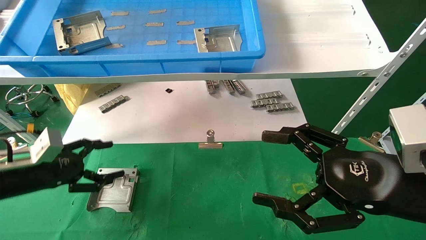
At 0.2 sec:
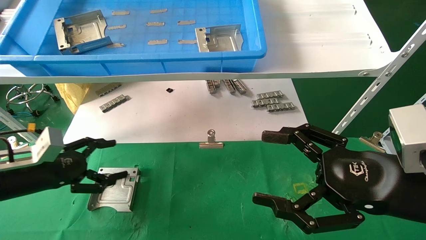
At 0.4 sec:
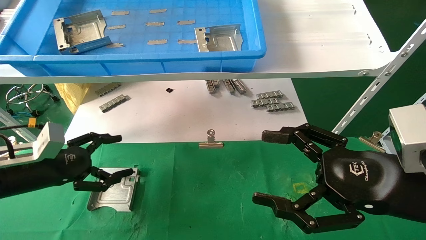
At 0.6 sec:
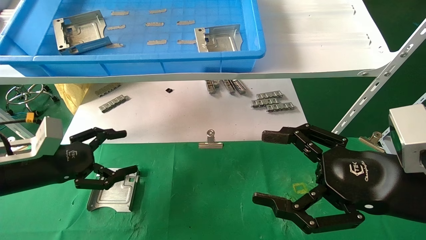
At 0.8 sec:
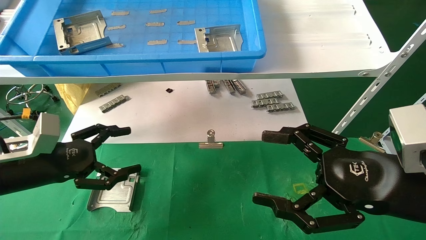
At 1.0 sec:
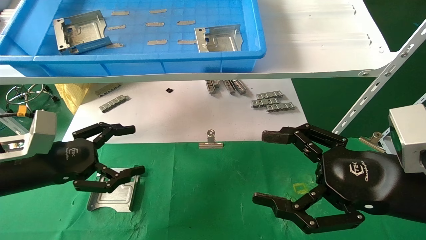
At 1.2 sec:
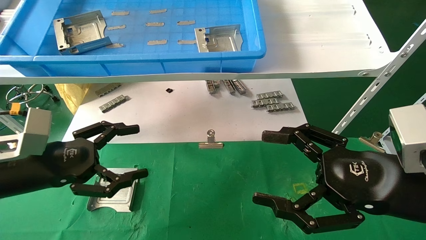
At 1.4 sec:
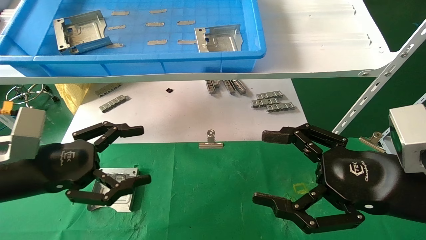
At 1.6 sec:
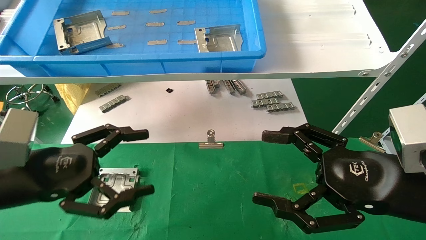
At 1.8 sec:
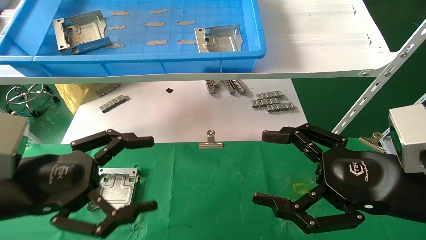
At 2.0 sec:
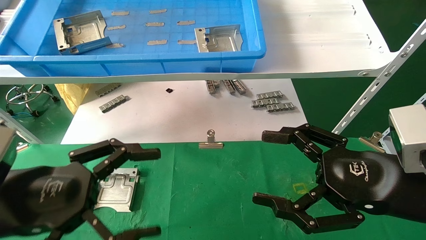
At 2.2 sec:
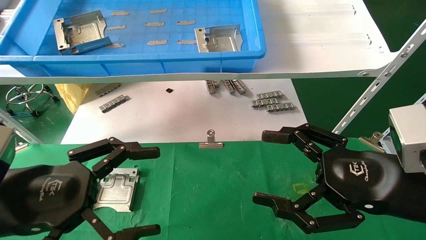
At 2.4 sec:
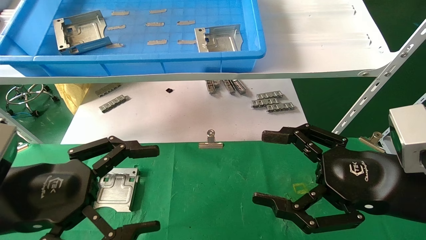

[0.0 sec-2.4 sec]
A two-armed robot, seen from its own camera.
Task of the whole recording: use the mechanical arm to pick up the parts and place them on the table.
0.0 sec to 1.2 sec: The left gripper goes roughly 10 cm to the right and backward.
1.2 sec to 2.4 sec: The left gripper travels backward by approximately 10 cm.

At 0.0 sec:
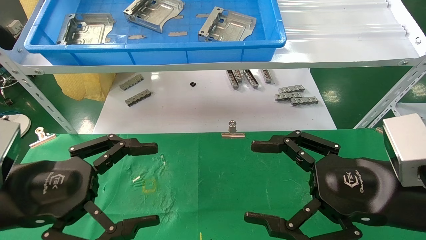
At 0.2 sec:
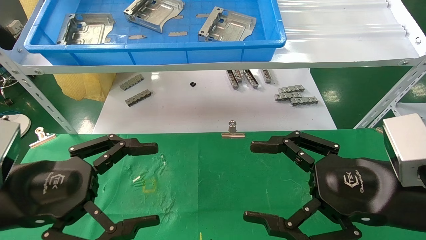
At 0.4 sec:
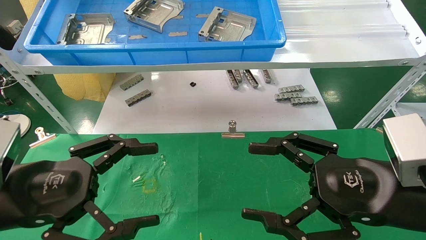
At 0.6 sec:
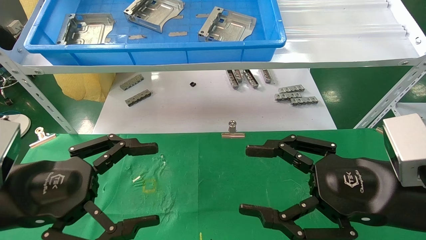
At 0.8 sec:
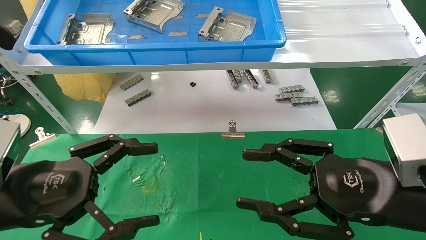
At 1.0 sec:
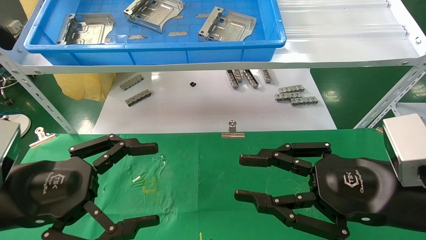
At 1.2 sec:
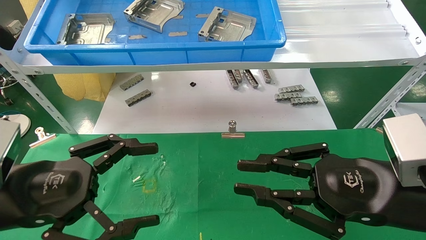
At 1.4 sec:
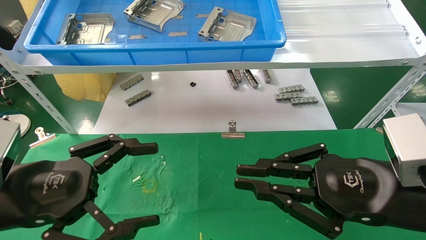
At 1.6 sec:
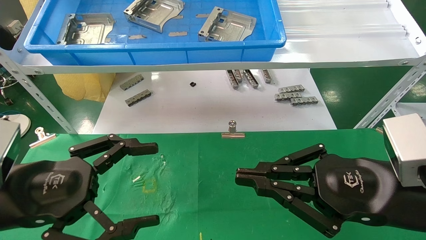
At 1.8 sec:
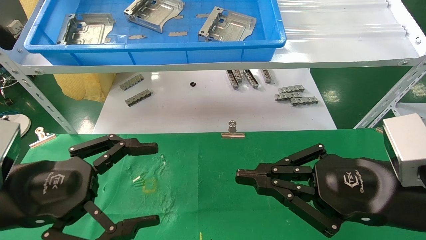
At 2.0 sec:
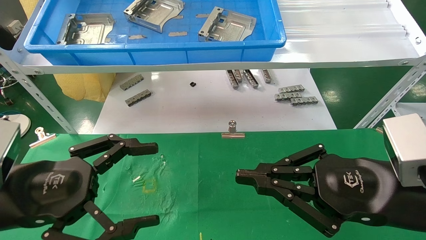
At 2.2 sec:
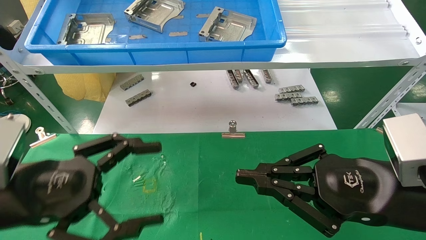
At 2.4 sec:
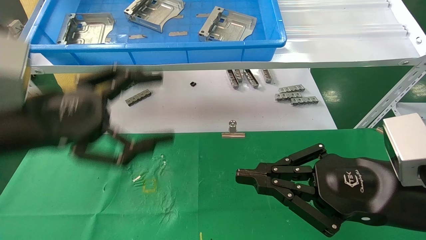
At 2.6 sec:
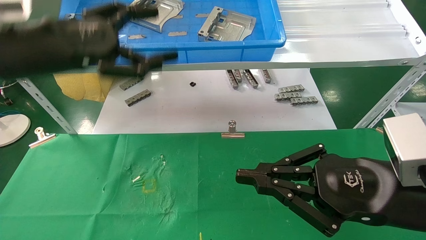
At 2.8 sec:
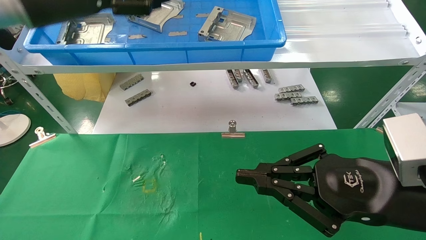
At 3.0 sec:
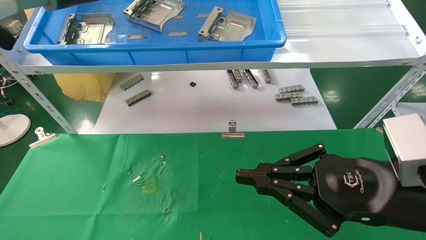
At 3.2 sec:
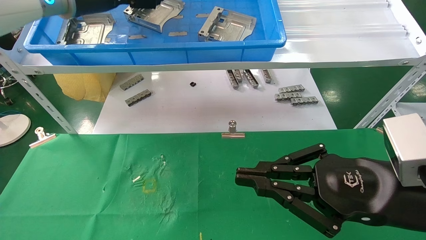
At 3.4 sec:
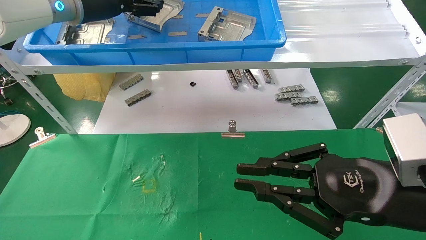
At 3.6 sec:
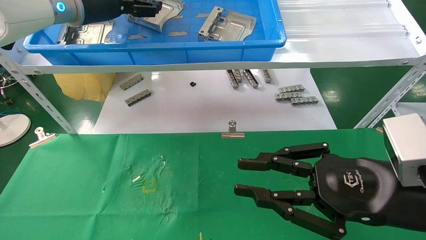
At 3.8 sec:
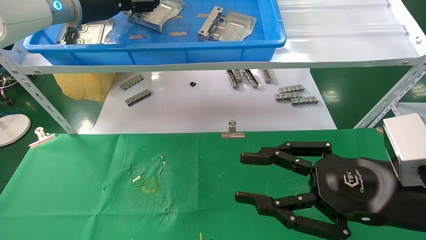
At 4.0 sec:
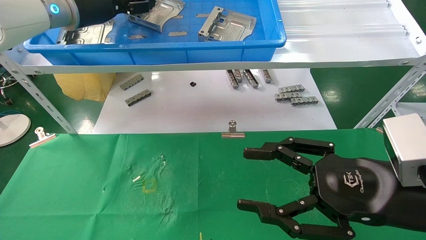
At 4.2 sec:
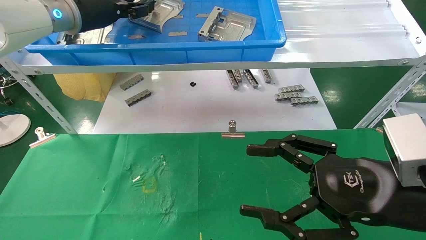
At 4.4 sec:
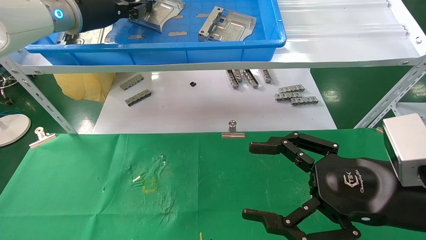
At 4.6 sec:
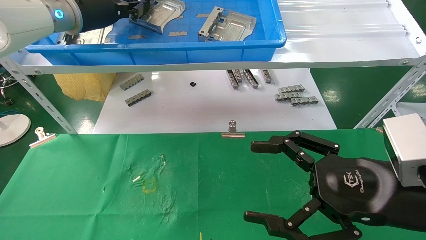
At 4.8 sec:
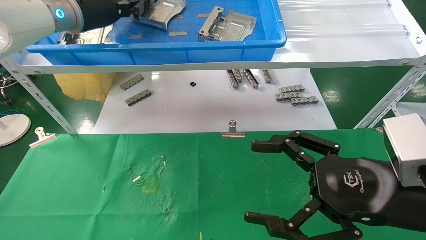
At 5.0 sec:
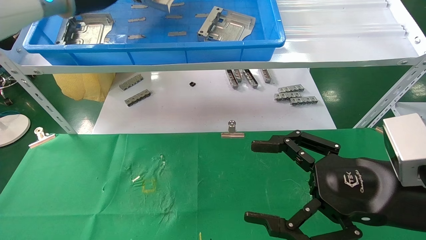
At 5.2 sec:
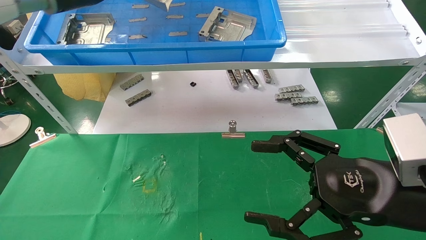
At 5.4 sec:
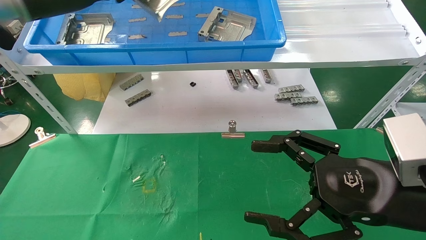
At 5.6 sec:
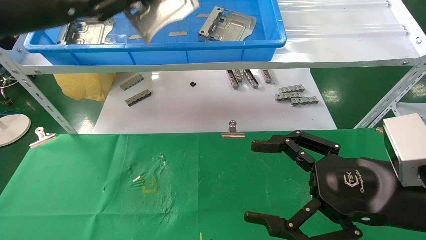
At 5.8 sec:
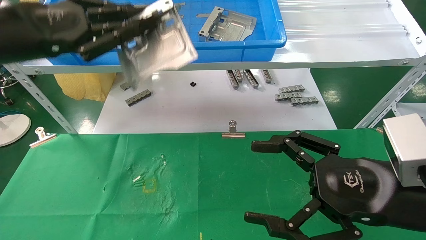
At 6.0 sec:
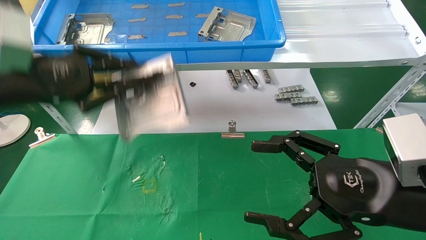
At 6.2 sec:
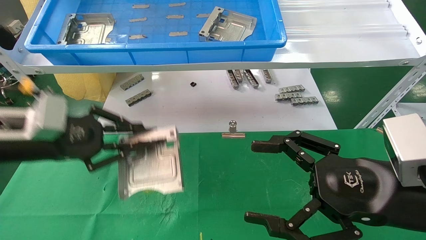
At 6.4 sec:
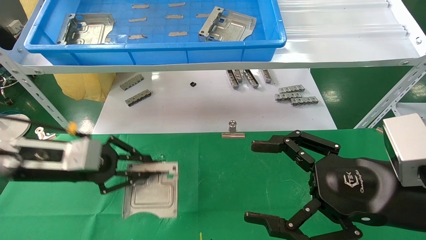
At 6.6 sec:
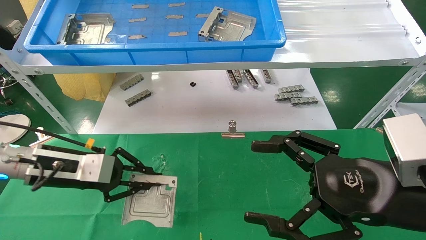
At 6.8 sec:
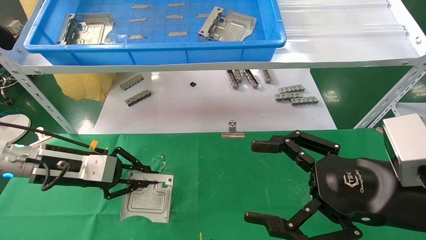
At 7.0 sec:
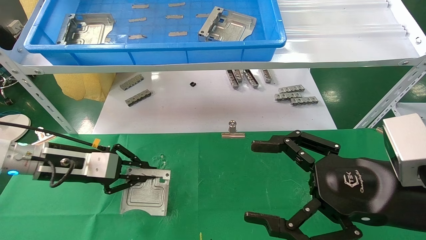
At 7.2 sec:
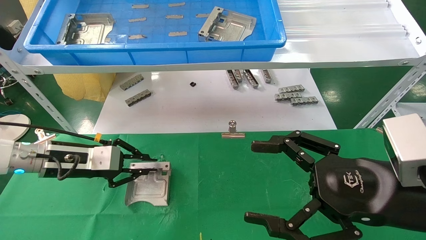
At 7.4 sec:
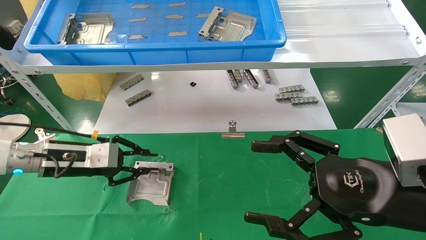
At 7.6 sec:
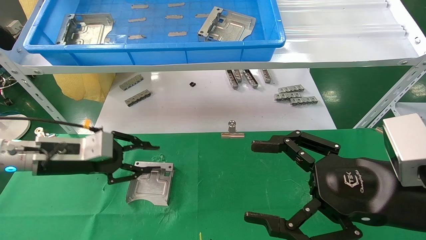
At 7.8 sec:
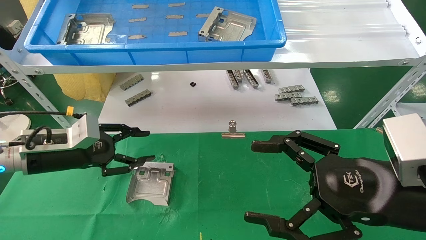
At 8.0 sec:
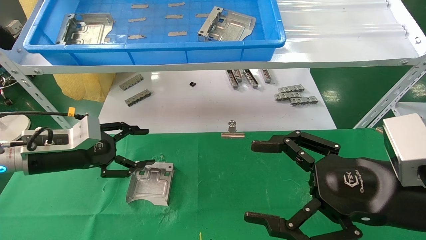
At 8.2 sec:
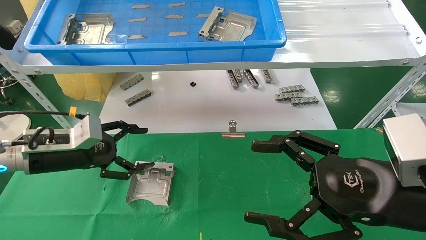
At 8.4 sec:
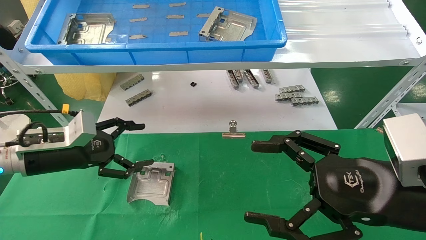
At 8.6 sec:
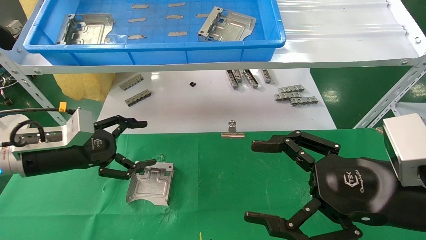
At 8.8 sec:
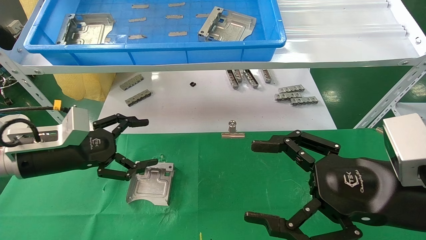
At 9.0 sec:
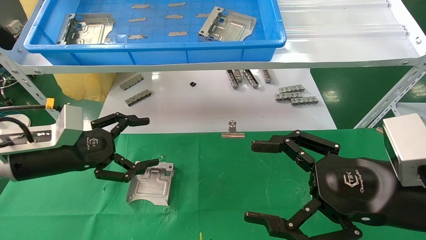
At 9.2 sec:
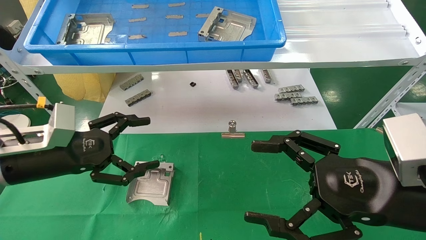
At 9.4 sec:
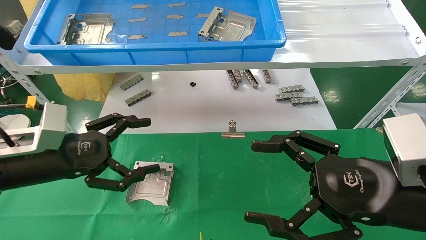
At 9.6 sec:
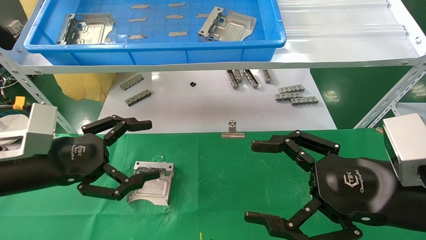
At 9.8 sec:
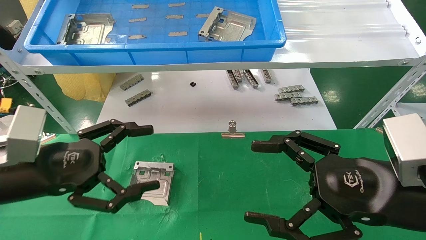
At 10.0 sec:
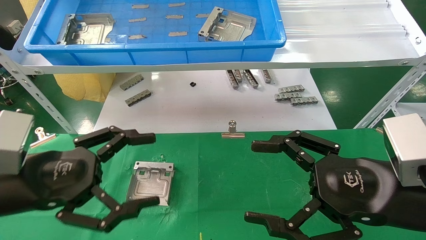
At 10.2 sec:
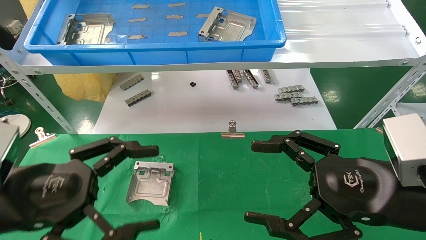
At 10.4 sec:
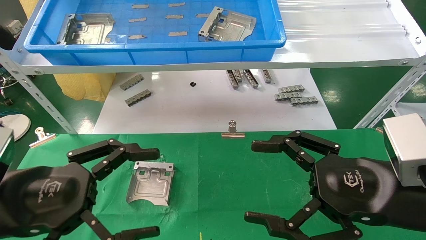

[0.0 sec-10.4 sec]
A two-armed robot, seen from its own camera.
Task of the whole recording: use the mechanical arm to pick up the parts and place them on the table.
Step, 2.2 sec to 4.6 sec: Pick up the hard drive bracket from the feeding area.
Step, 4.8 sec to 7.8 sec: Place the hard drive bracket into the box.
0.0 sec to 1.4 sec: The right gripper closes its fingers.
1.4 sec to 3.0 sec: The left gripper heads upward and forward, covering about 30 cm.
3.0 sec to 4.4 sec: The right gripper opens up. Meanwhile the left gripper shifts by about 5 cm, and closes up.
4.4 sec to 6.0 sec: The left gripper travels backward, downward and to the left by some 20 cm, and closes its fingers.
6.0 sec to 7.4 sec: The left gripper goes roughly 15 cm downward and forward.
7.4 sec to 9.0 sec: The left gripper moves backward, approximately 5 cm, and opens its fingers.
9.0 sec to 10.4 sec: The left gripper goes roughly 15 cm backward.
